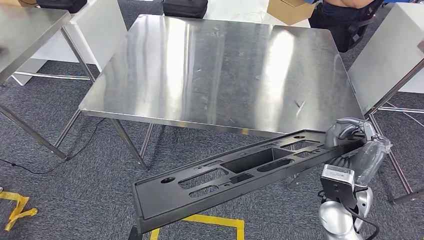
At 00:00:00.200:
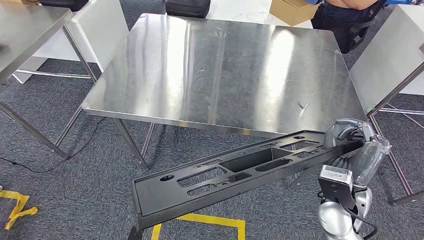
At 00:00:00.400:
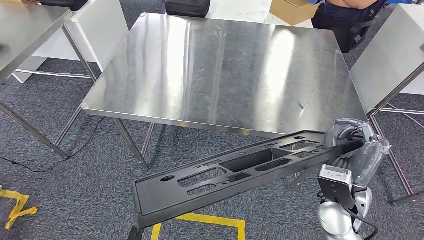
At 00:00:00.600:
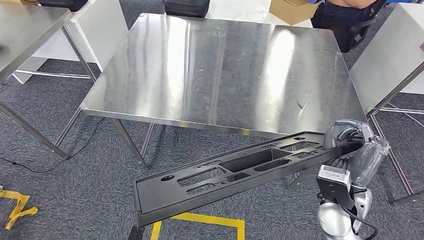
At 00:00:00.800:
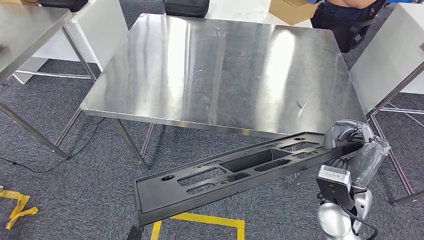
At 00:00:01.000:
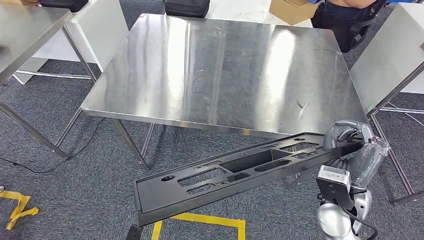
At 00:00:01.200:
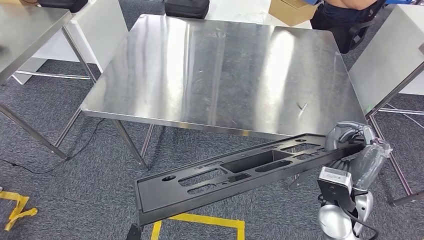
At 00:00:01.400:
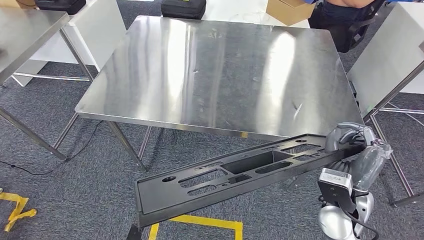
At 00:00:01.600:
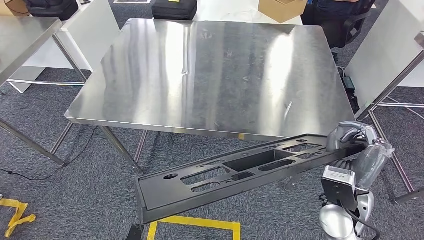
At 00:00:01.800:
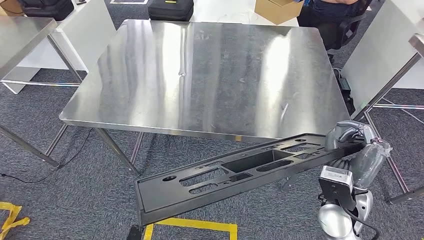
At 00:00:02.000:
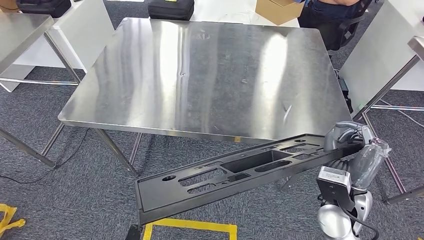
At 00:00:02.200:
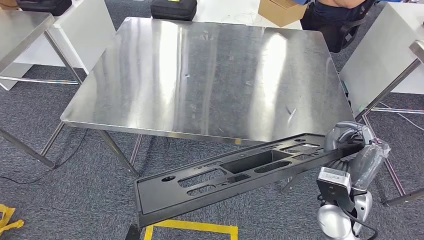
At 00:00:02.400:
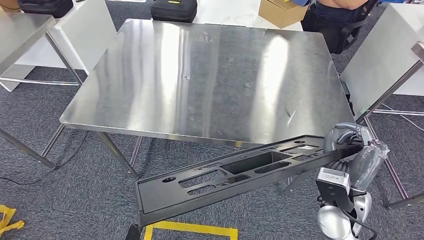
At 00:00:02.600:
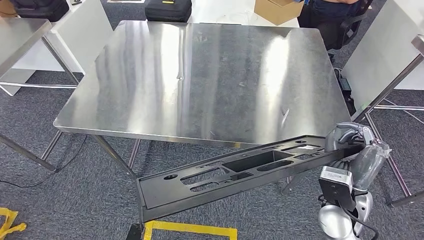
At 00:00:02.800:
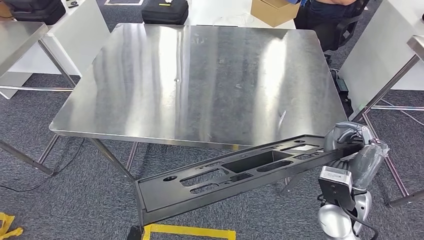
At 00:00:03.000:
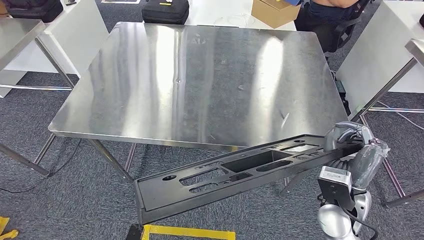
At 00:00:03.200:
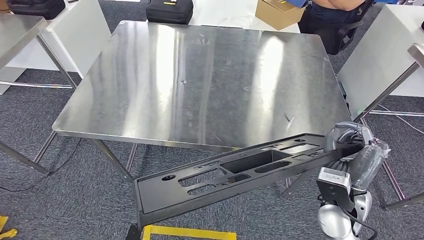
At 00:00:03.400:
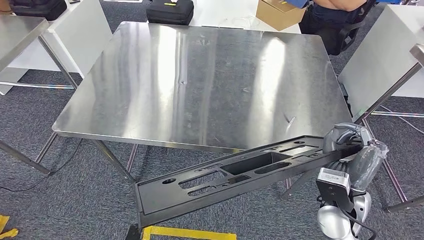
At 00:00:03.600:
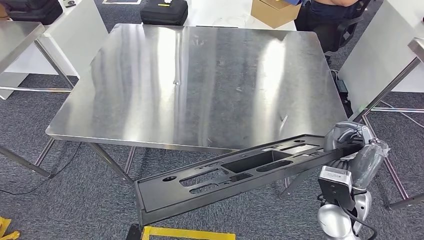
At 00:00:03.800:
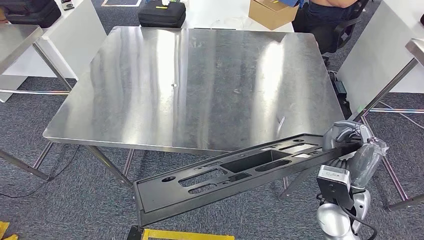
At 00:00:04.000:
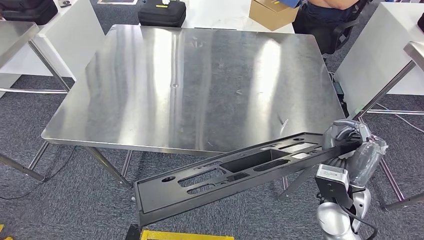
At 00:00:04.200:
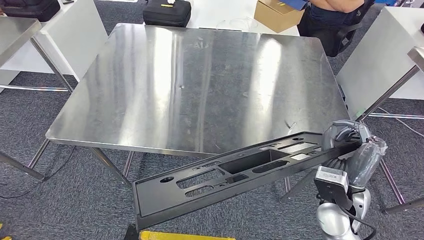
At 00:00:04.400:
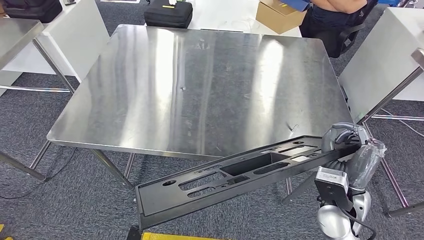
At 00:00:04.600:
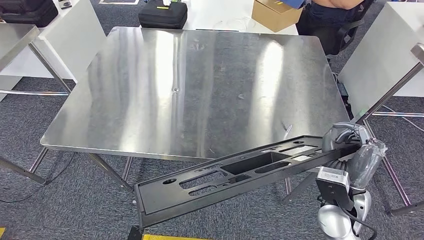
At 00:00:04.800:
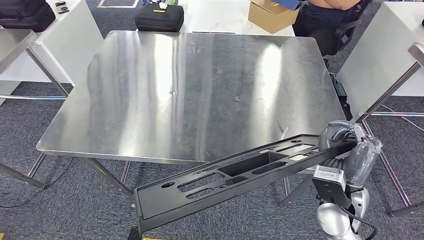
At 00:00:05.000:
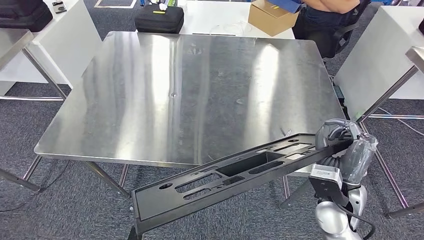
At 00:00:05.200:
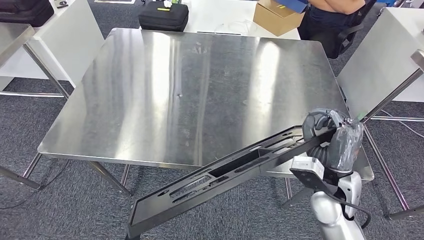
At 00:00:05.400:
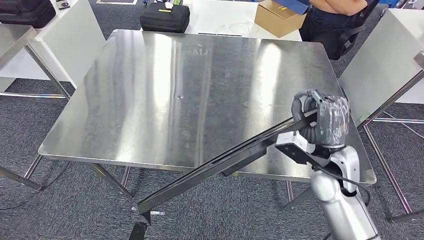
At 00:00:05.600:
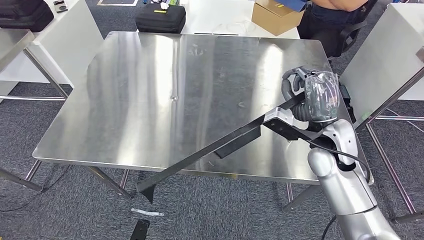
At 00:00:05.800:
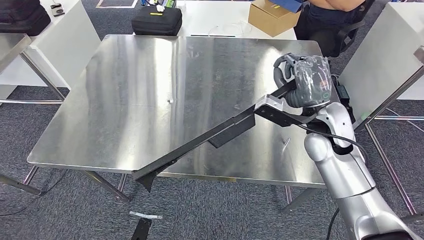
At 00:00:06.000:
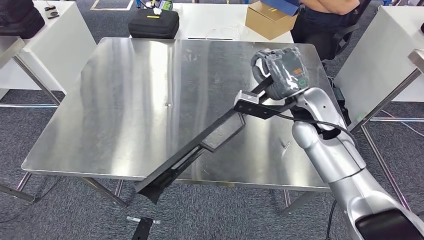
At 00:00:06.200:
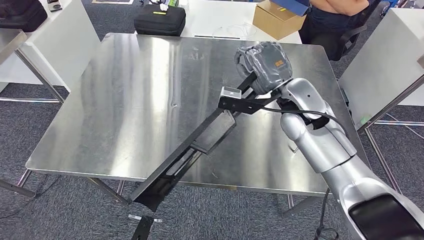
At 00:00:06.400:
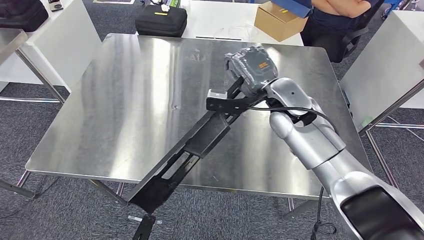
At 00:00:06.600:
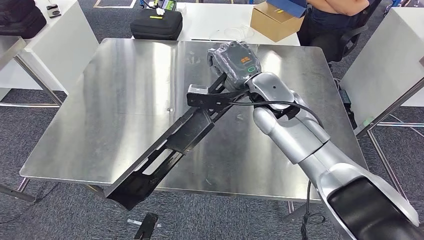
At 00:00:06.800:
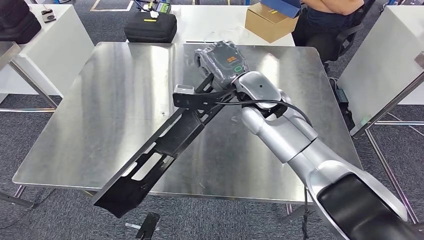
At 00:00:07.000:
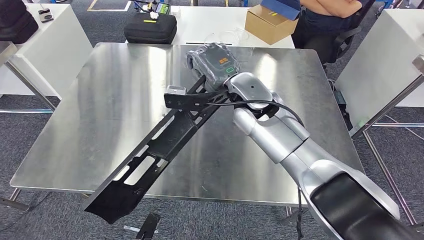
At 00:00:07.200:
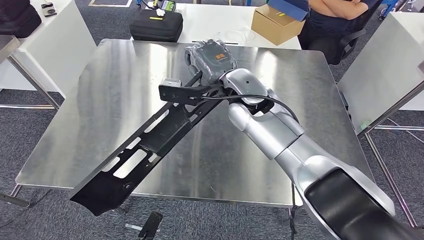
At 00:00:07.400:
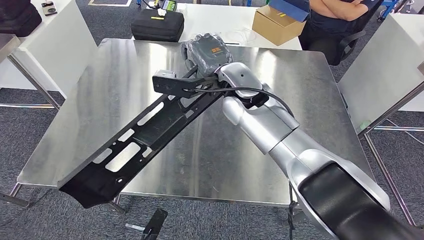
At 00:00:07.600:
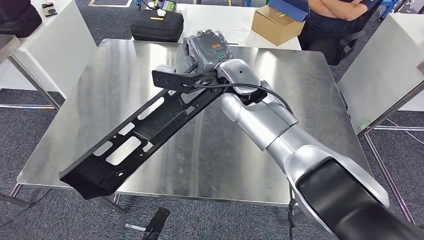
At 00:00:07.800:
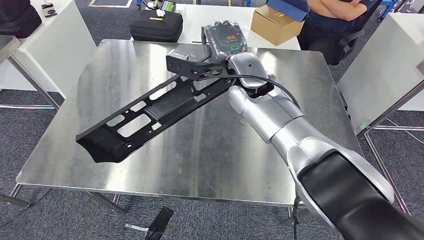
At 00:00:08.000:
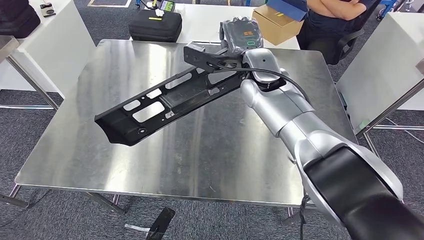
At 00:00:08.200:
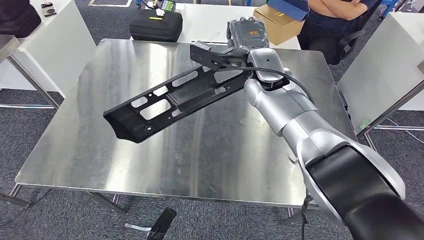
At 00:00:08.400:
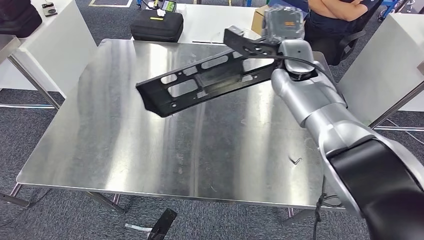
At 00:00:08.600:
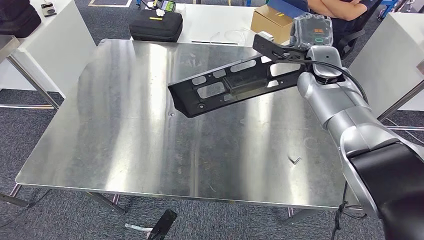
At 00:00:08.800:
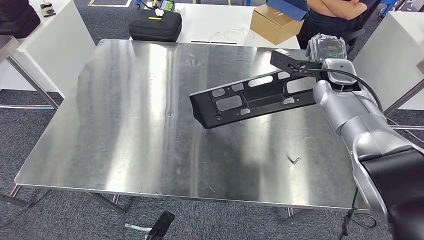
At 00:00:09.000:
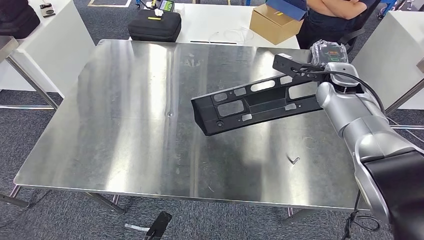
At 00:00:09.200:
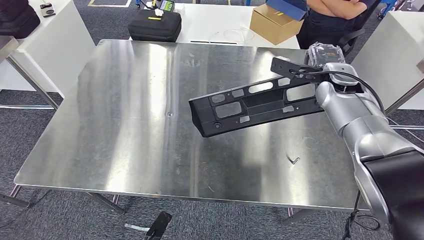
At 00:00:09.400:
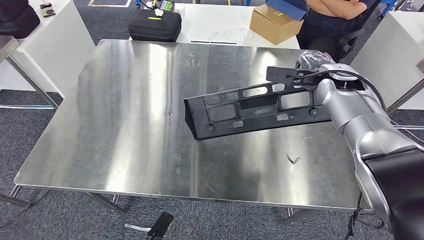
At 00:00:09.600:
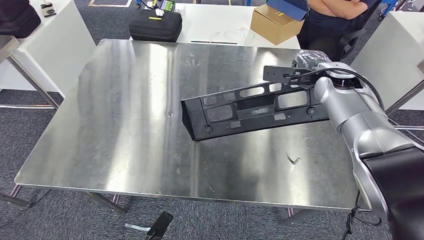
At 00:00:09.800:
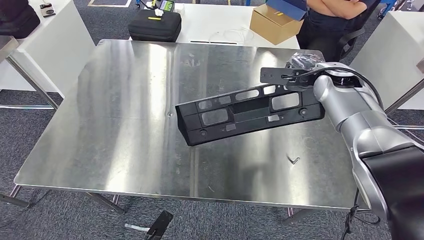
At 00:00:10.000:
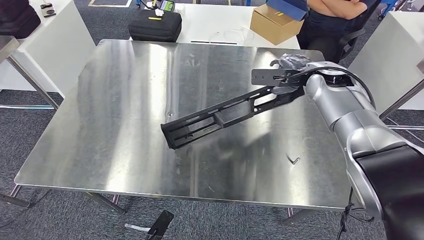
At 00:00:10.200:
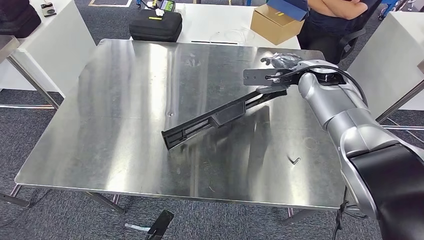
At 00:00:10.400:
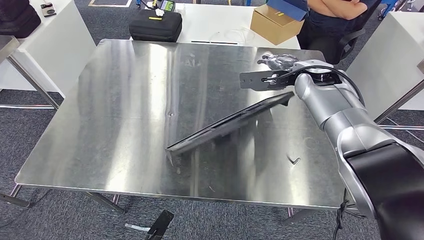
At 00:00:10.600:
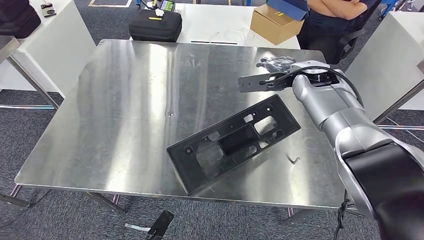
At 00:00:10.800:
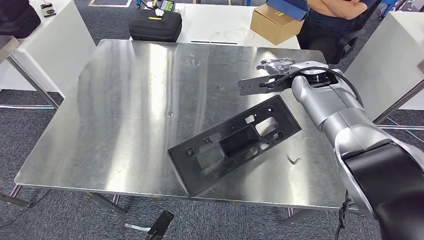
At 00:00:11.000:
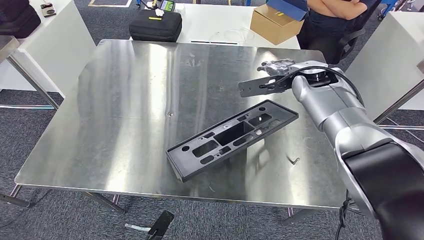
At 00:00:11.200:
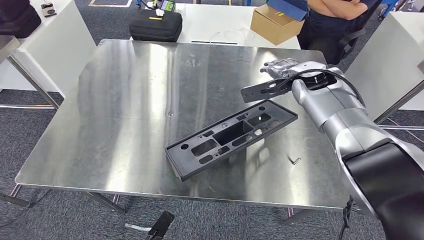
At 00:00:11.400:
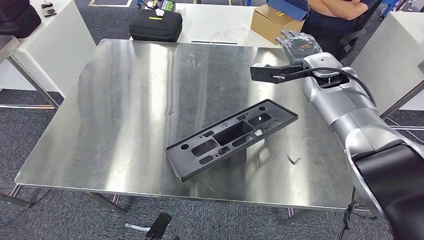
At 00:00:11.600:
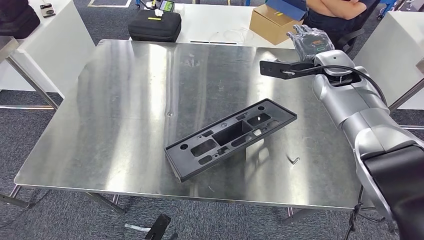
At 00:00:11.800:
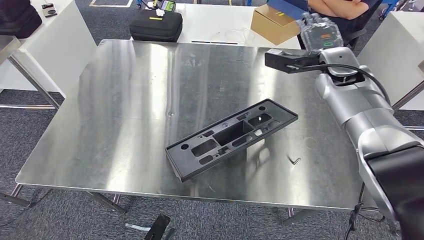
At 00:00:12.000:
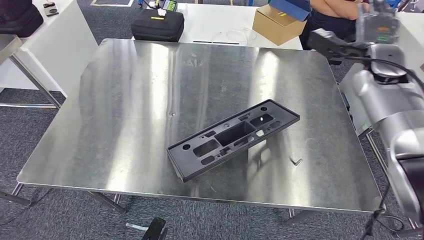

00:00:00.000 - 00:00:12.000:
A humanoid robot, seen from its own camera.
00:00:03.000 - 00:00:04.400: Both hands stay about where they are.
00:00:09.000 - 00:00:10.400: The right hand travels to the left by some 5 cm.

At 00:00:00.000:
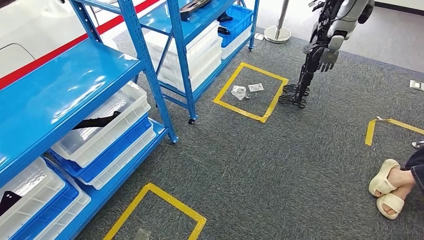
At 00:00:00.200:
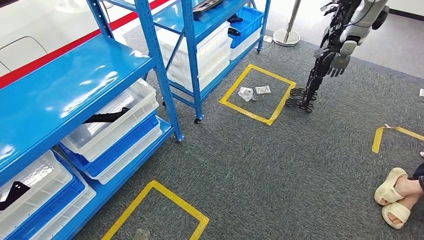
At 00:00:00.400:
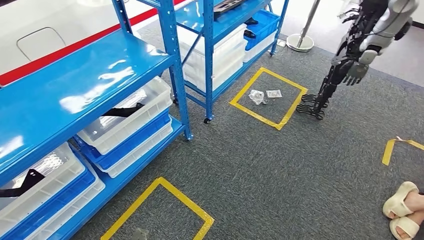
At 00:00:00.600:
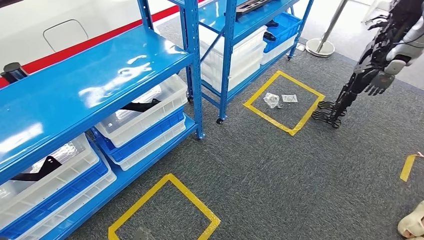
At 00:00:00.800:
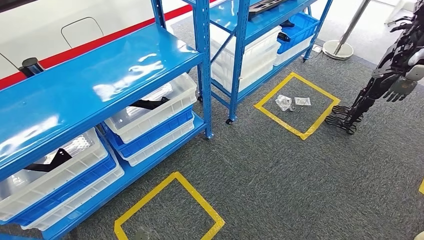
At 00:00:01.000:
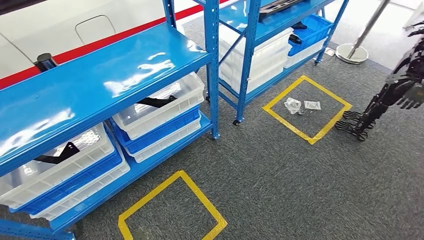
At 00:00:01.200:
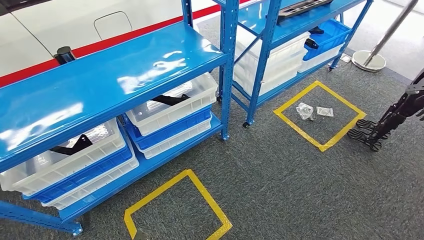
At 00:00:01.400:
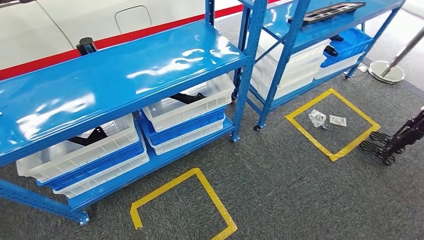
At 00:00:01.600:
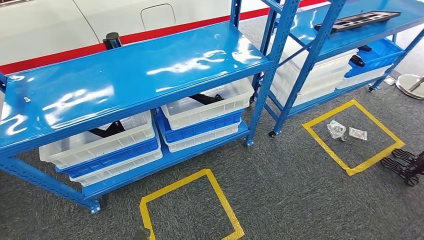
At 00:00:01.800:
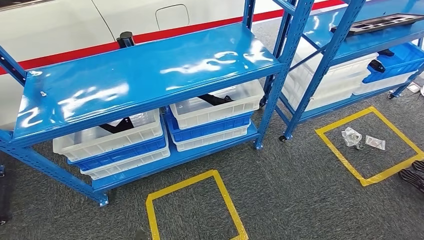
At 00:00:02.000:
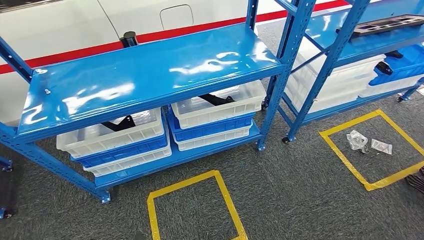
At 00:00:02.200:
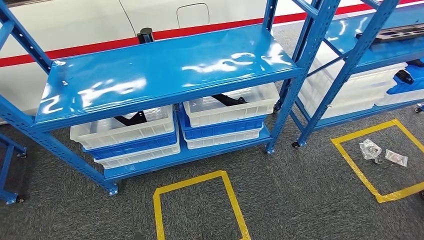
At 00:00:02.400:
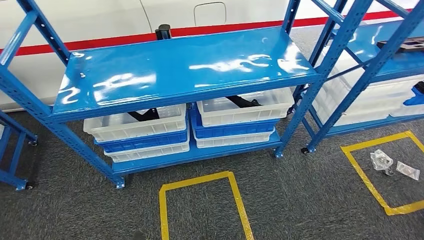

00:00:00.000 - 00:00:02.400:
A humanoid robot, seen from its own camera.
Step, 00:00:00.000 - 00:00:02.400: Move to the initial position of the shelf.
